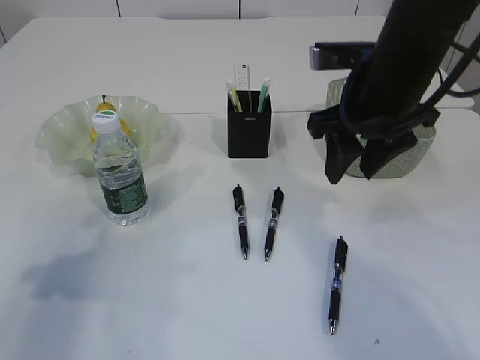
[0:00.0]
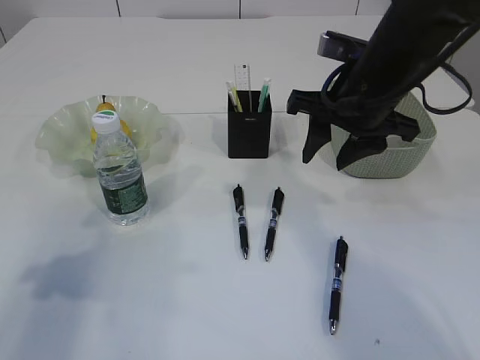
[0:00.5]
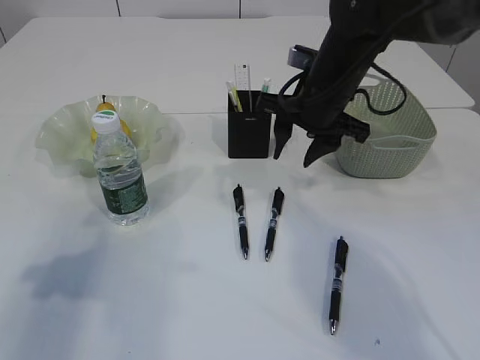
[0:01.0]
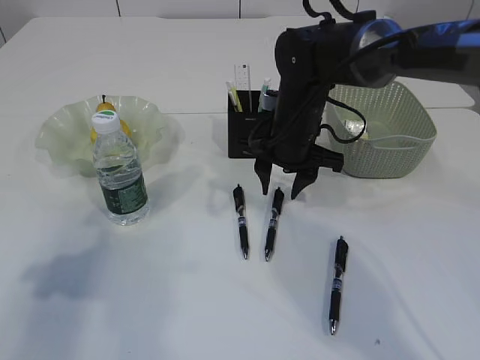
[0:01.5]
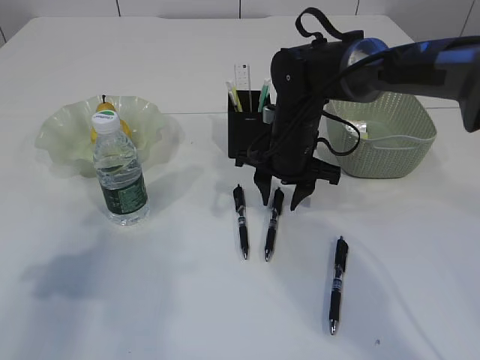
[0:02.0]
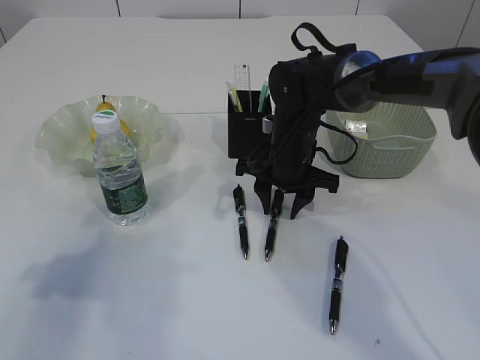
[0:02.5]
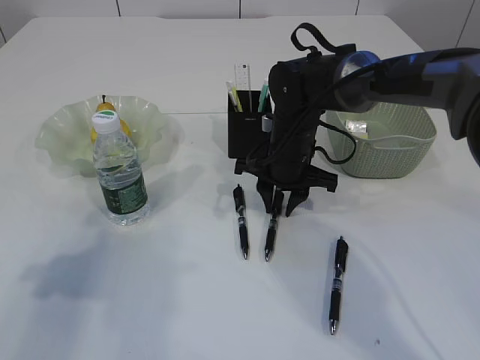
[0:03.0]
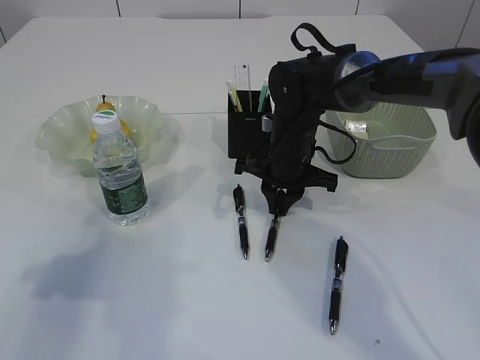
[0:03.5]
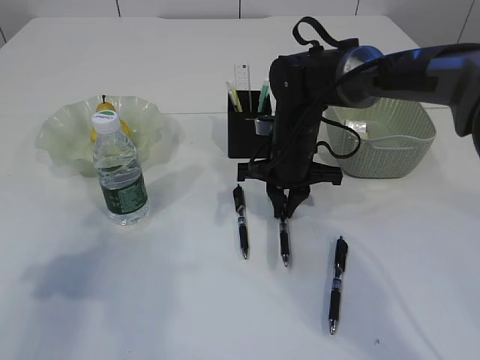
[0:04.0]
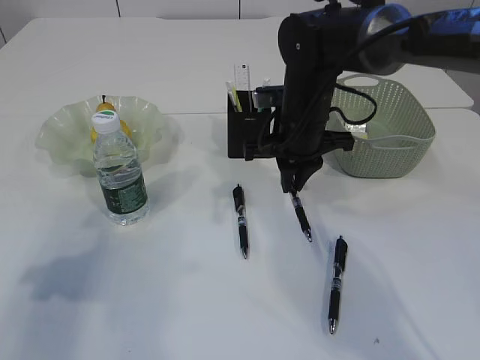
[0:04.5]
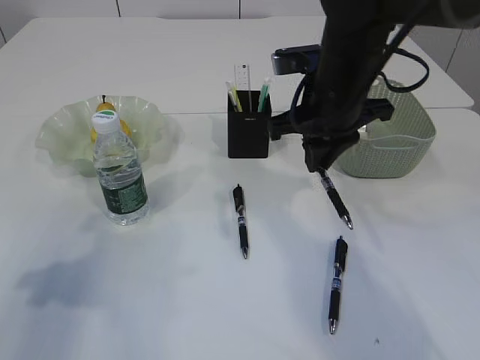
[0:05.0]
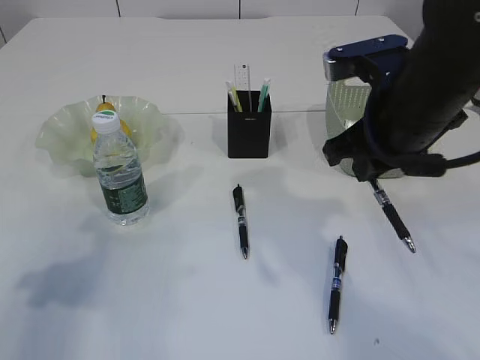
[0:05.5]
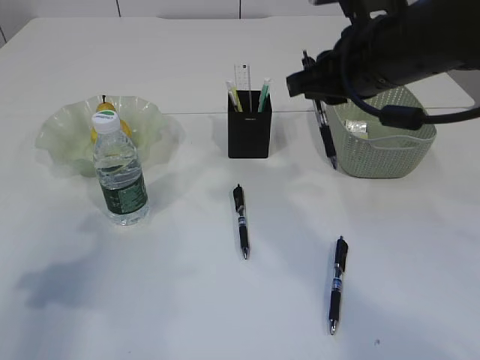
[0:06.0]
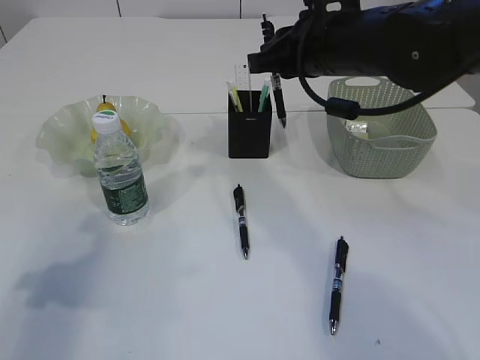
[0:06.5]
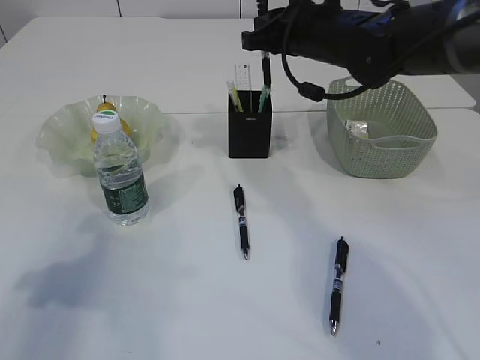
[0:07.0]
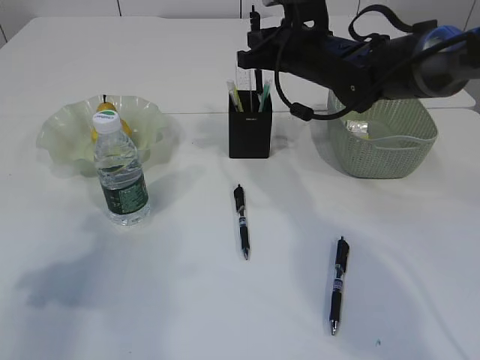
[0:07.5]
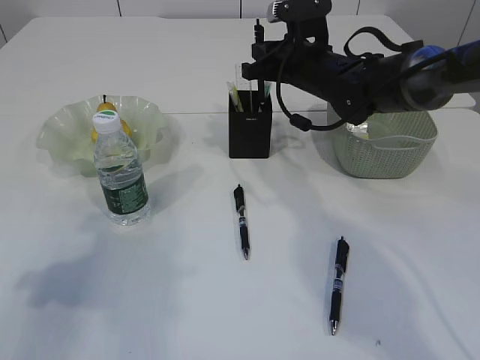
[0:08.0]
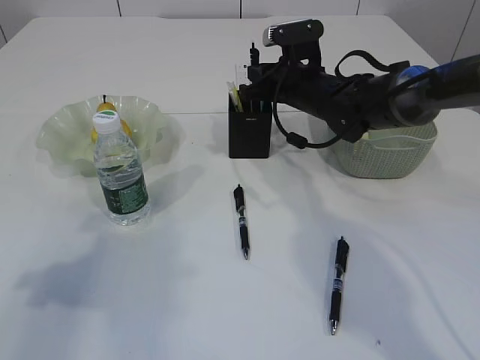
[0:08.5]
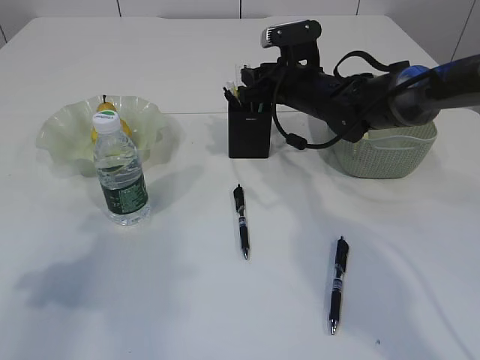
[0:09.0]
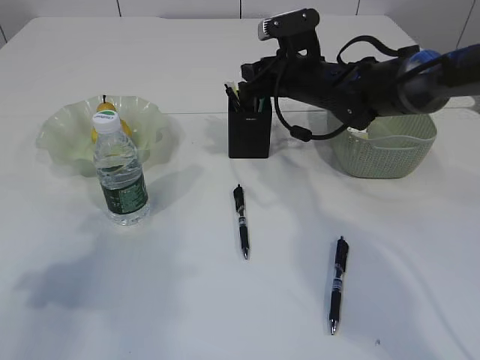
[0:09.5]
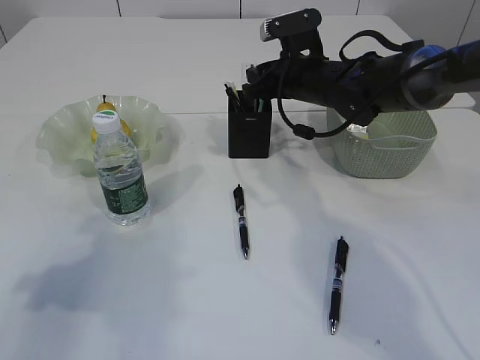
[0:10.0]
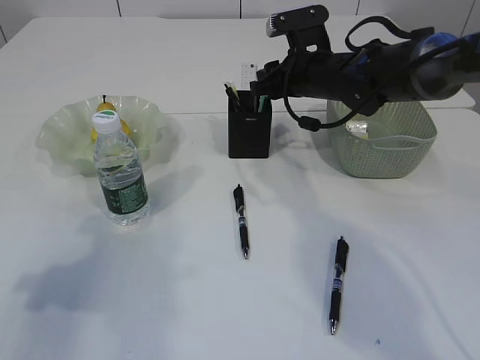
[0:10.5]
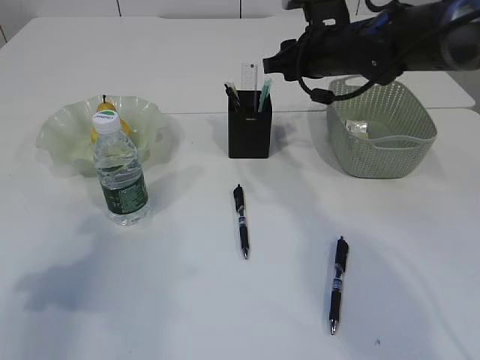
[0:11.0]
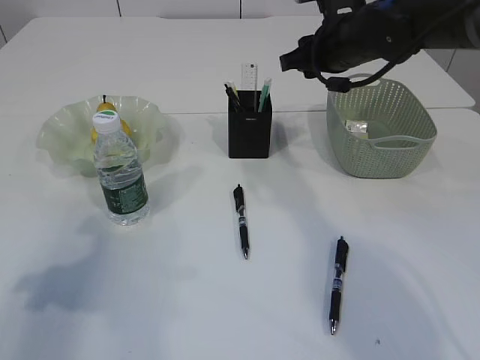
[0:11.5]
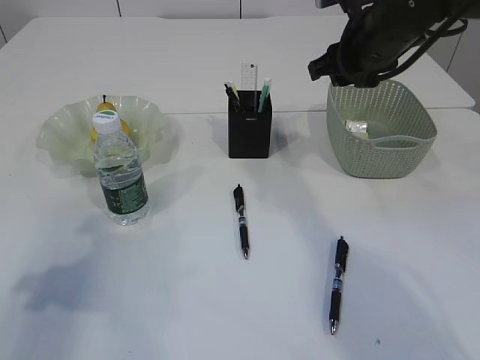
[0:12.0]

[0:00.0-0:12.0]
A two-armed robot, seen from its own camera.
Step, 0:00.0 to 0:04.0: Pick up the pen with right arm.
Step, 0:04.5 to 0:12.0: Place the pen into the pen holder.
0:00.0 to 0:02.0: The right gripper travels downward, forward and to the left by about 15 cm.
0:02.0 to 0:04.0: The right gripper closes up.
0:04.0 to 0:06.0: The right gripper moves upward and backward, some 20 cm.
0:06.0 to 0:08.0: The right gripper moves forward and downward, approximately 20 cm.
0:08.0 to 0:10.0: The right gripper opens up.
0:10.0 to 0:12.0: The right gripper is displaced upward, backward and to the right by approximately 10 cm.

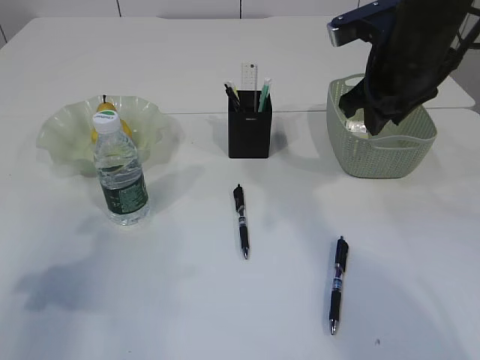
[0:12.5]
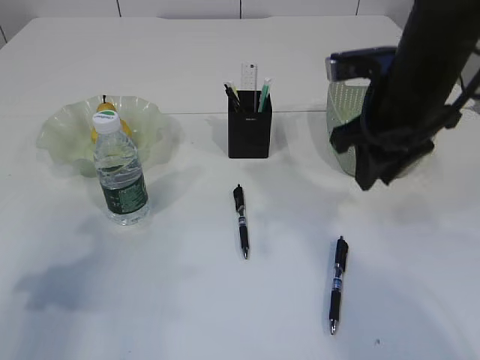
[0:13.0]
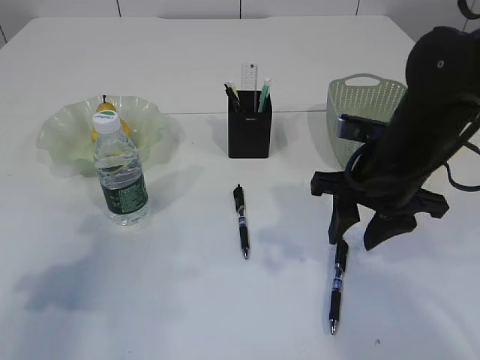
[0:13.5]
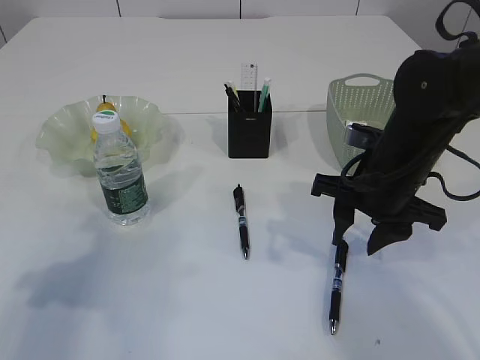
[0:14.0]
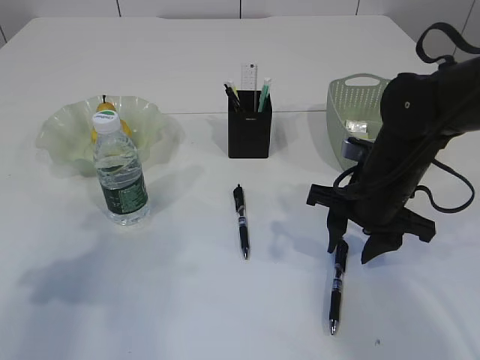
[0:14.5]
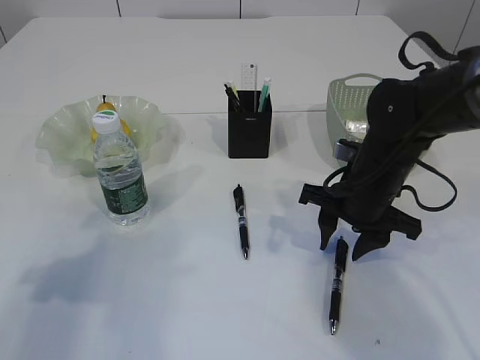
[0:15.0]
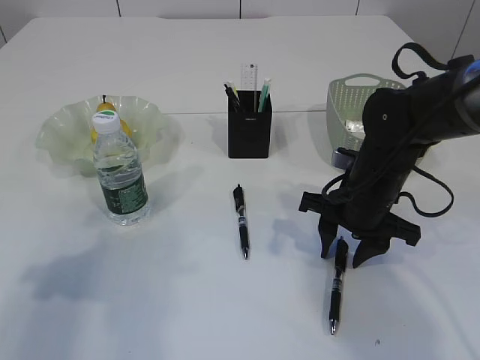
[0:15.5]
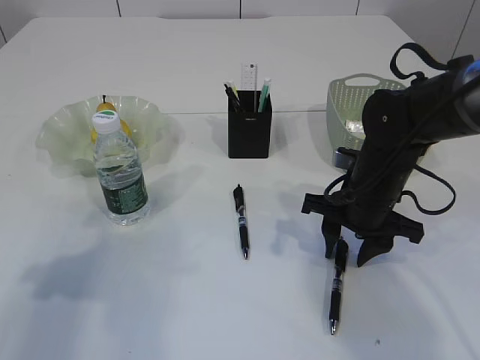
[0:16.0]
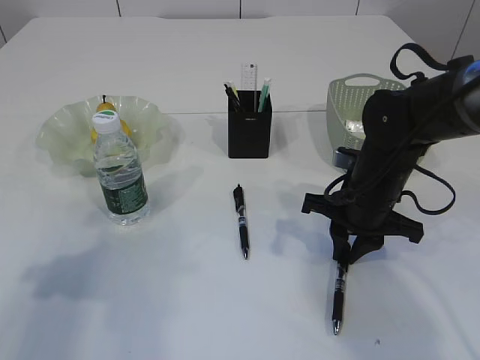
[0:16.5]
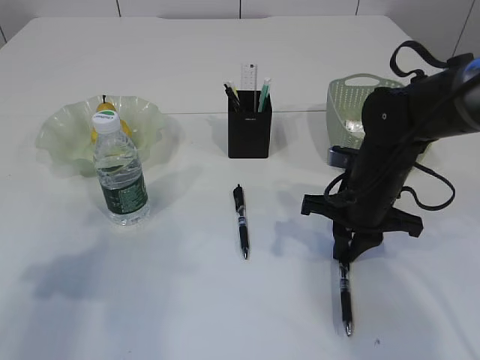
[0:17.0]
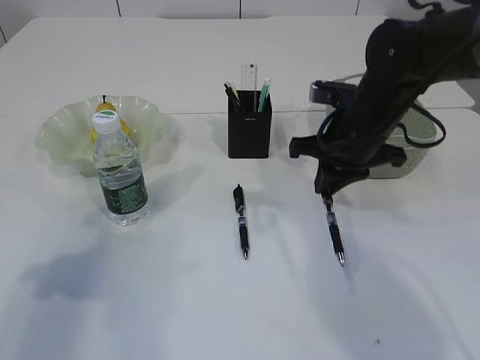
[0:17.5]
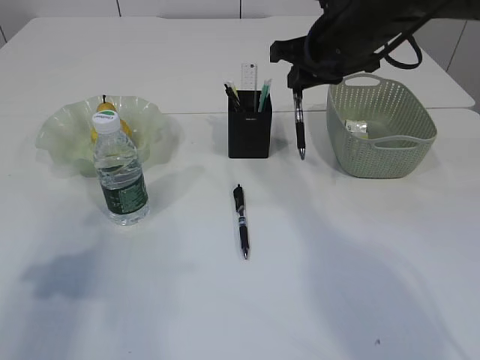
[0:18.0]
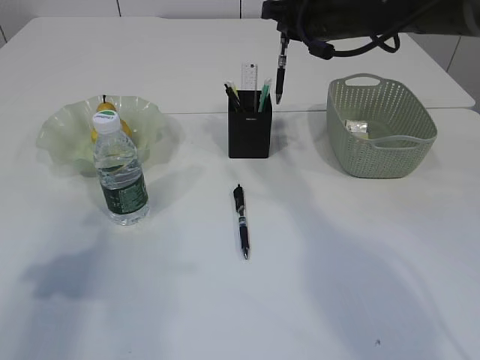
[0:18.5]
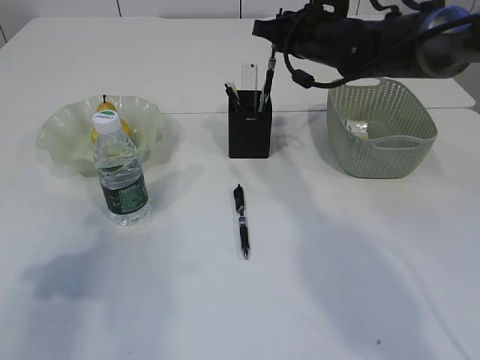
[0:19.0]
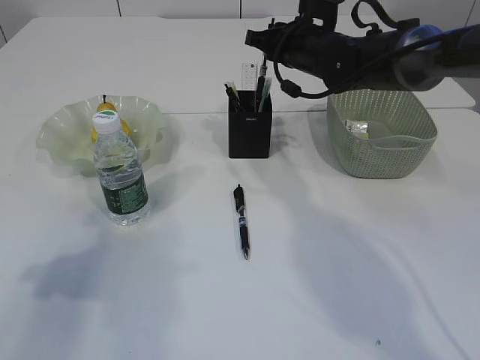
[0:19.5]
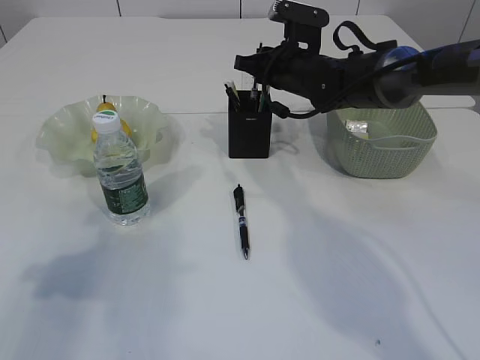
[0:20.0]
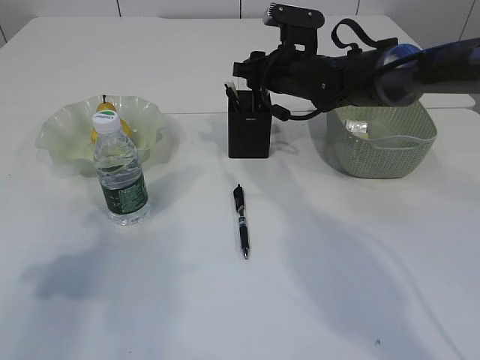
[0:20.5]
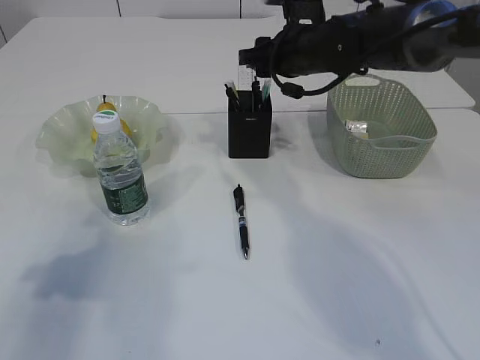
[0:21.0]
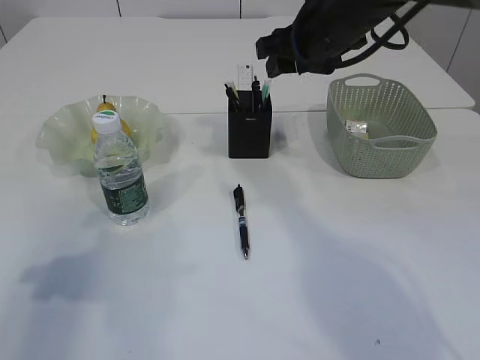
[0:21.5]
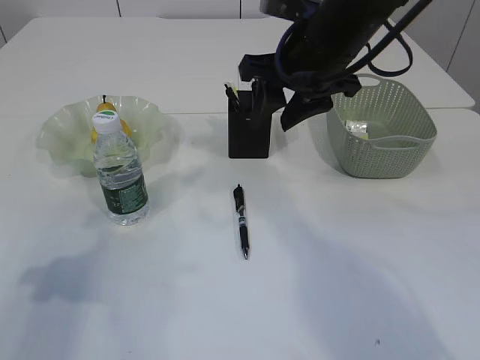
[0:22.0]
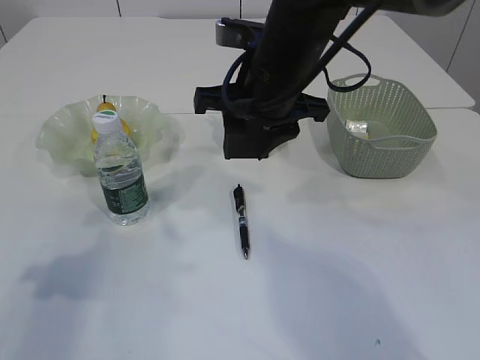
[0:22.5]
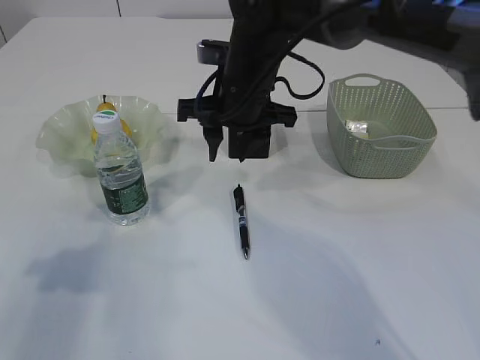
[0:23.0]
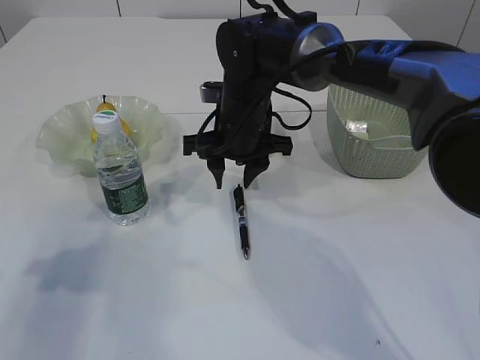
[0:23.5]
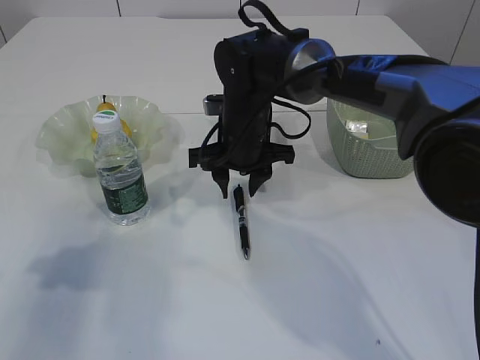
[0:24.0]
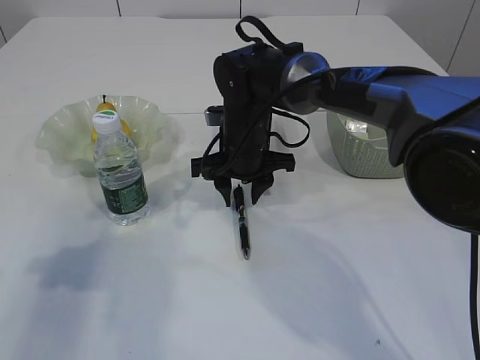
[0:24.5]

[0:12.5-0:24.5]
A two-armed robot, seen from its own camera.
Step, 0:12.5 to 0:18.0: Pick up the pen with right arm.
Step, 0:18.5 to 0:21.5: Place the pen into the pen holder.
0:12.5 to 0:14.5: The right gripper moves downward and backward, about 15 cm.
0:14.5 to 0:16.5: The right gripper closes.
0:16.5 to 0:18.5: The right gripper heads upward and forward, covering roughly 20 cm.
0:18.5 to 0:20.5: The right gripper heads downward, covering approximately 10 cm, and opens.
0:20.5 to 0:22.5: The right gripper travels backward and upward by some 15 cm.
0:22.5 to 0:24.5: The right gripper goes about 15 cm downward and forward.

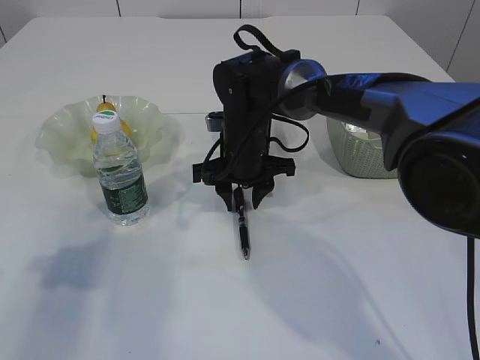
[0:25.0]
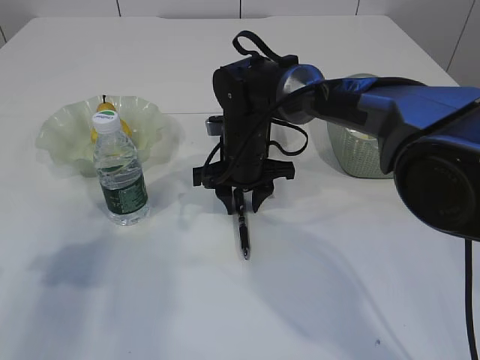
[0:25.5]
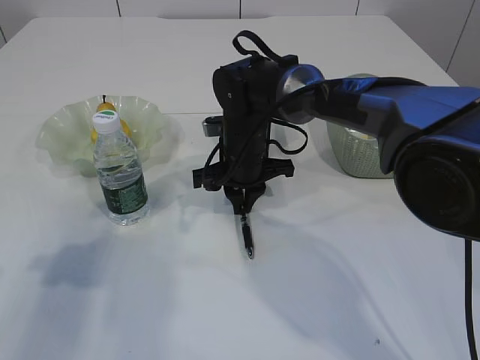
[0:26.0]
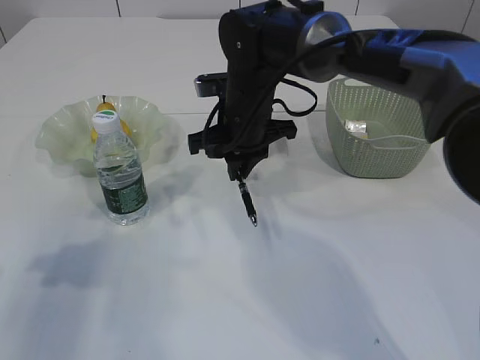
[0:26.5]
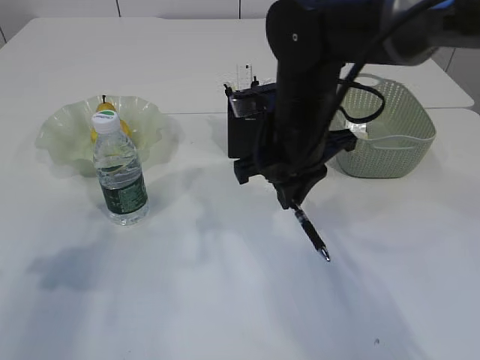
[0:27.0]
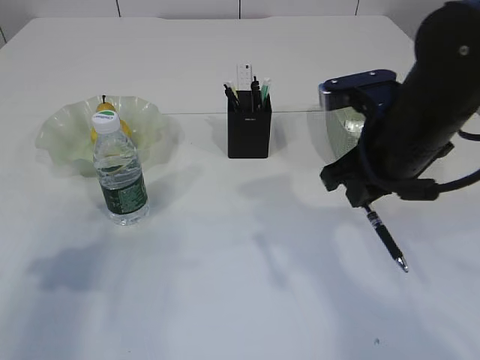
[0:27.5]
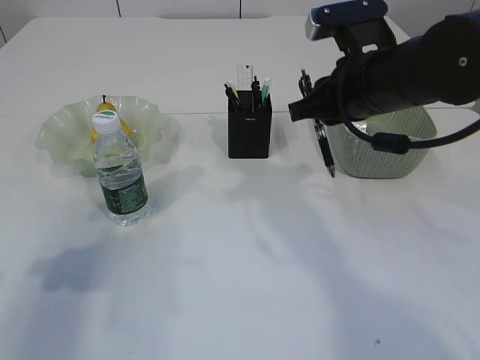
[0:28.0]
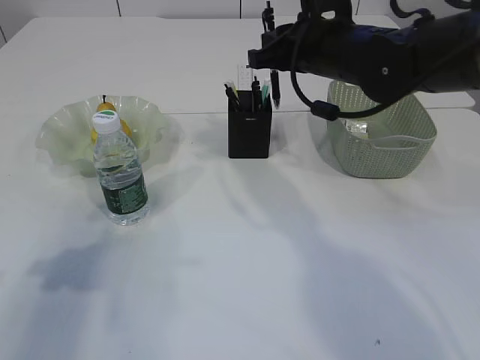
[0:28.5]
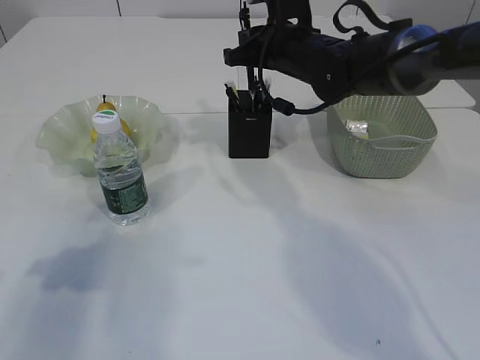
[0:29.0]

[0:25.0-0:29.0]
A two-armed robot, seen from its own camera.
0:25.0 to 0:27.0: The right gripper shifts approximately 10 cm upward and backward, and closes up.
0:27.0 to 0:29.0: The right gripper travels forward by about 10 cm.
